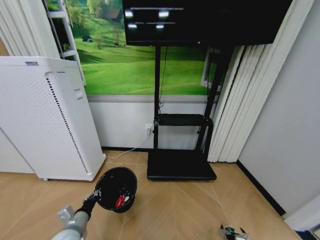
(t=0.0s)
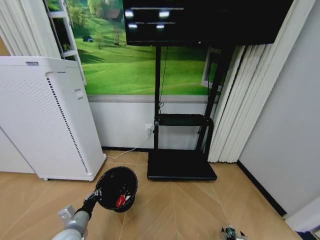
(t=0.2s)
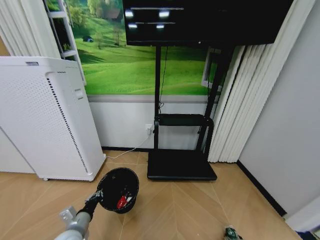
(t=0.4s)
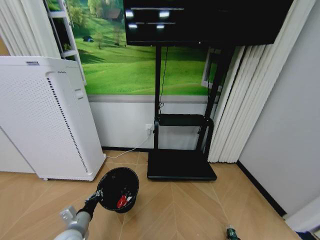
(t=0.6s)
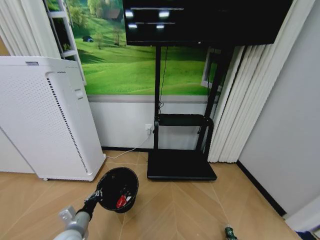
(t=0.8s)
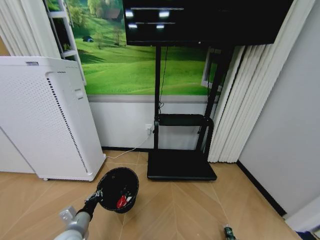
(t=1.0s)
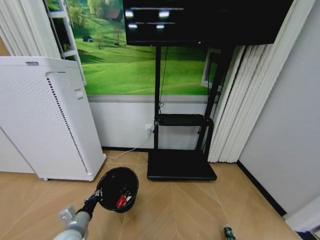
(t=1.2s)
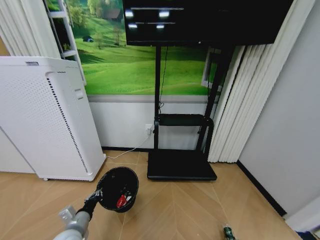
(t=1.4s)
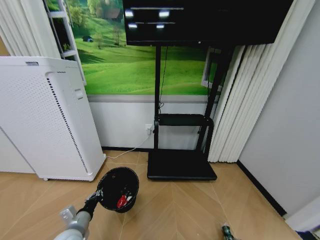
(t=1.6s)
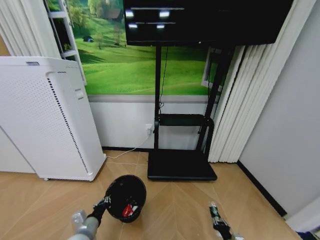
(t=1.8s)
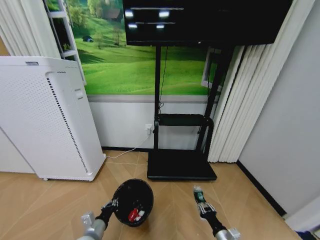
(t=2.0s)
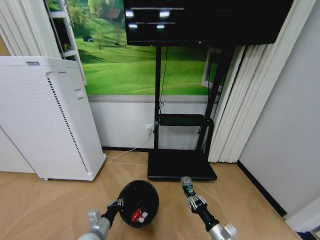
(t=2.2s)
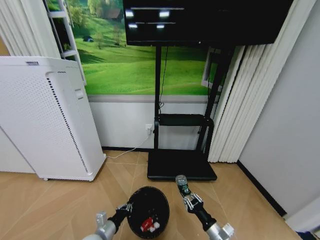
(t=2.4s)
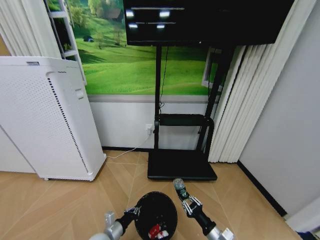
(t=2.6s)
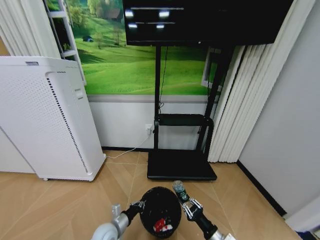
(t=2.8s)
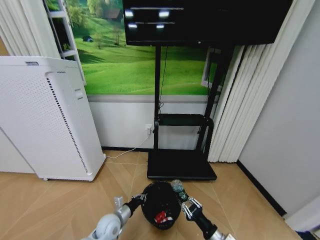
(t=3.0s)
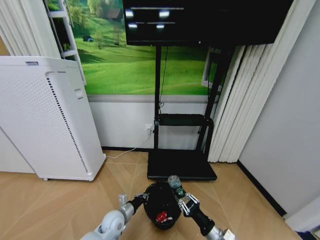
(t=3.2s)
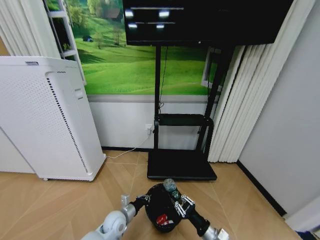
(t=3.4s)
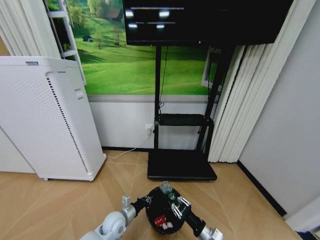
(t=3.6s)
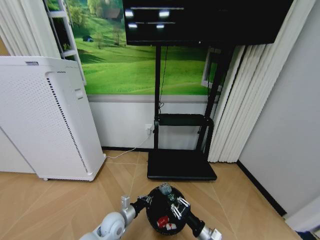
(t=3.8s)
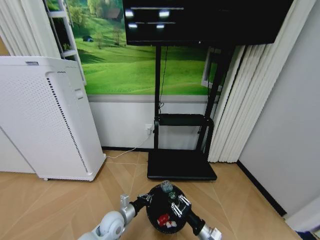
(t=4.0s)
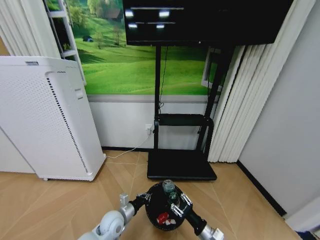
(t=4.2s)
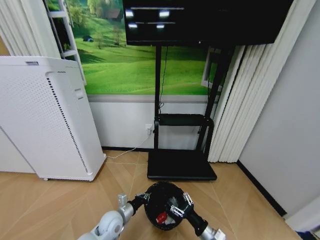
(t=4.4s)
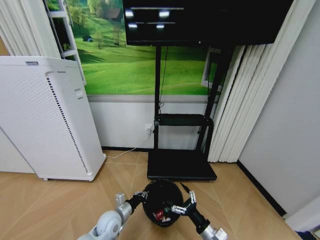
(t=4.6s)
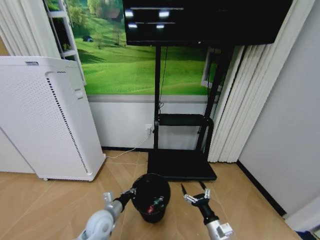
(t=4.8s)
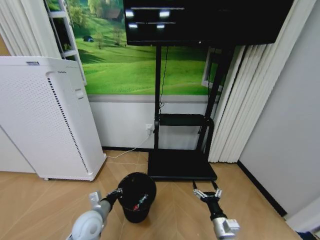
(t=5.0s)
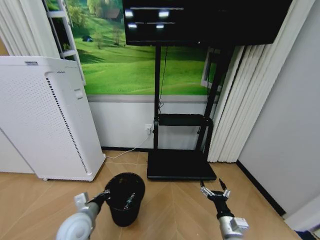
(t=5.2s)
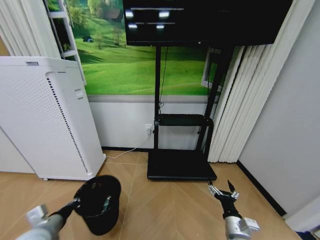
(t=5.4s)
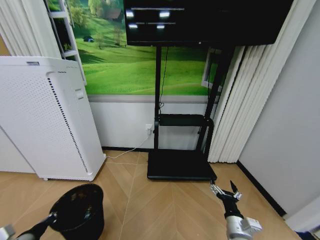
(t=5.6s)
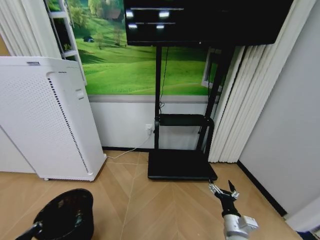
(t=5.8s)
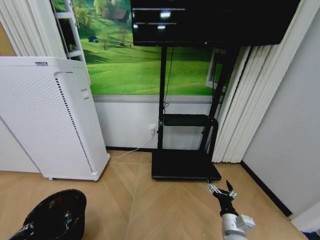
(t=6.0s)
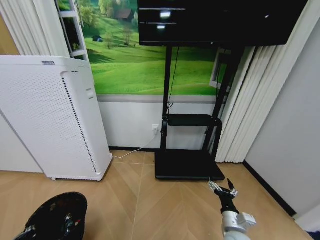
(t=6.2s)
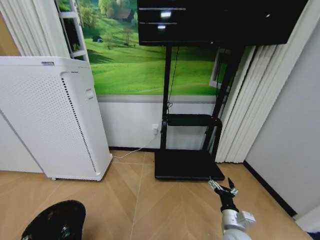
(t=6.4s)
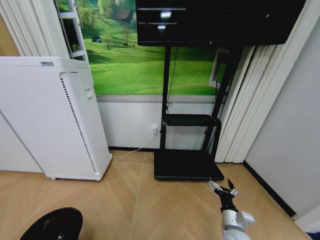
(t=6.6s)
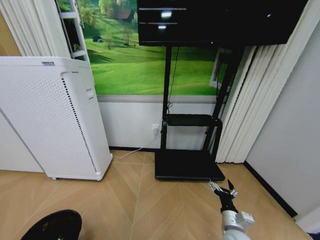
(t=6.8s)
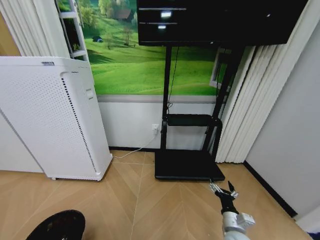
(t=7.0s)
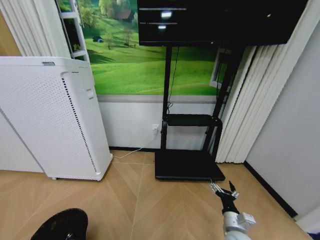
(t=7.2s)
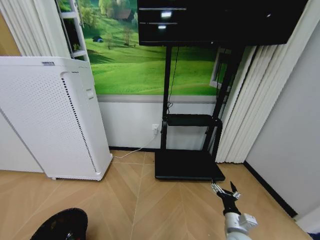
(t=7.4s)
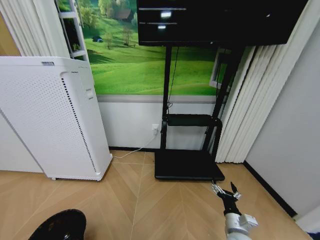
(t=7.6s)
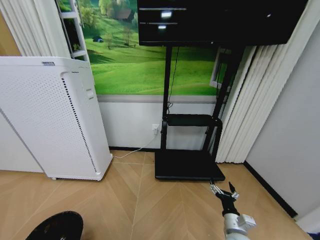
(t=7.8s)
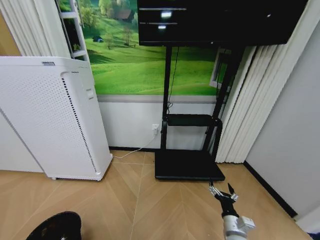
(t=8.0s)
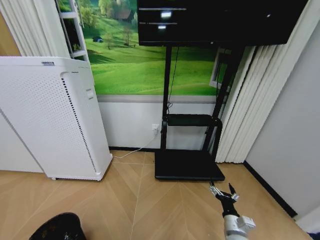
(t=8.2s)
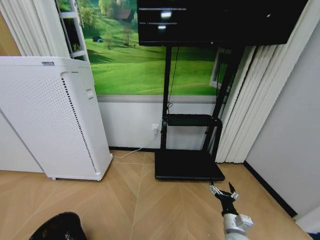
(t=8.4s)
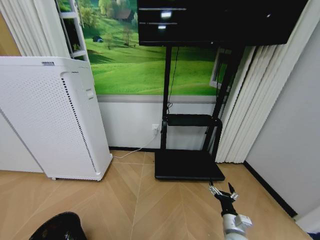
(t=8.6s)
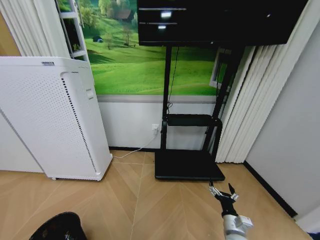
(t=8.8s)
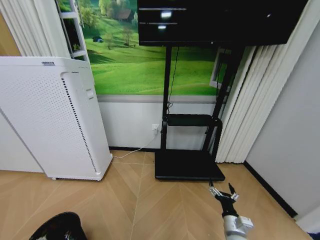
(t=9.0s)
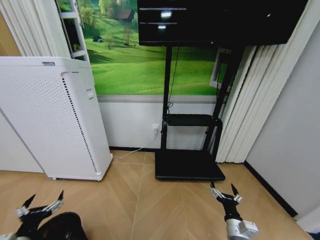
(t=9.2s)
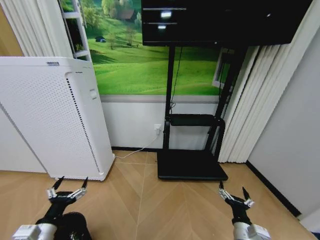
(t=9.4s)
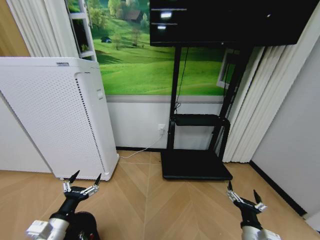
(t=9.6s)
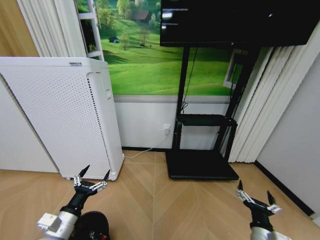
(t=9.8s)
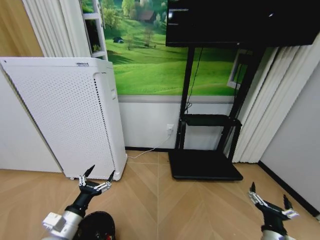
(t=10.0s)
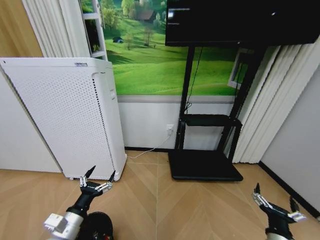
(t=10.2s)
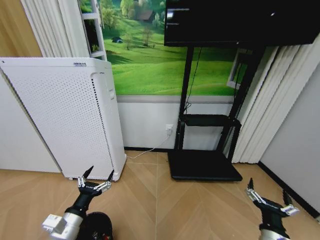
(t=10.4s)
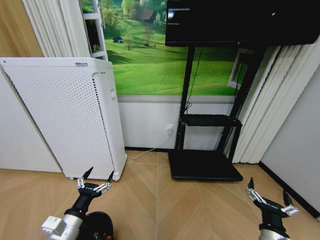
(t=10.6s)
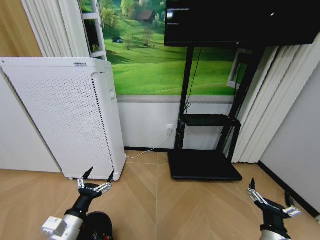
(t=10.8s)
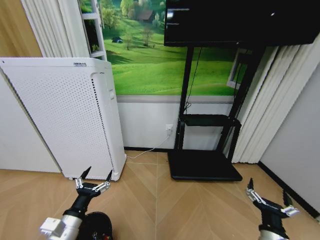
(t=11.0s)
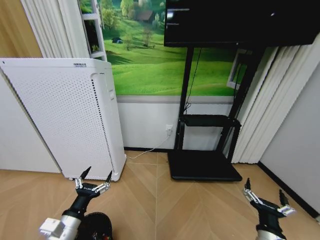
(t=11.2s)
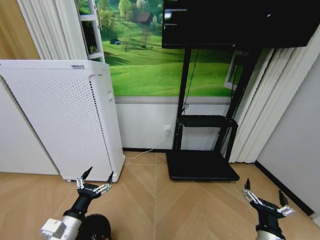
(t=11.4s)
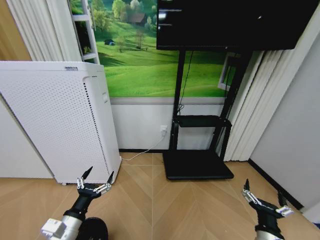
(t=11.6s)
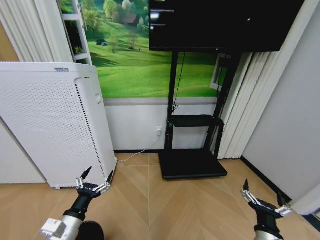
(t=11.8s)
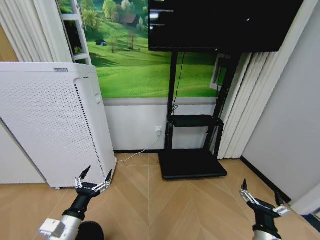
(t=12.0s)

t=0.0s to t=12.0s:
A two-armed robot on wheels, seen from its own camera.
Task of the whole recording: Pick up the trash bin and place the garbage on the floor into it.
t=0.0s to t=1.6s: The right gripper closes up.
t=1.6s to t=3.0s: The right gripper moves upward and to the left, approximately 20 cm. The left gripper goes some 15 cm to the right, forward and downward.
t=3.0s to t=4.4s: The right gripper opens.
t=4.4s to t=6.0s: The right gripper changes place by roughly 5 cm, and opens its fingers, while the left gripper moves to the left, backward and upward, approximately 35 cm.
t=6.0s to t=7.6s: The left gripper is displaced downward by approximately 5 cm.
t=7.6s to t=9.0s: The left gripper ends up approximately 5 cm from where it was, and opens.
t=9.0s to t=10.4s: The right gripper heads upward and backward, covering some 10 cm. The left gripper goes roughly 15 cm to the right and forward.

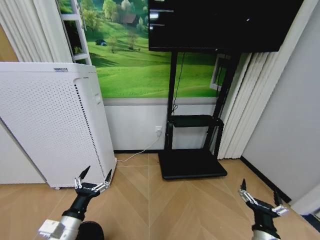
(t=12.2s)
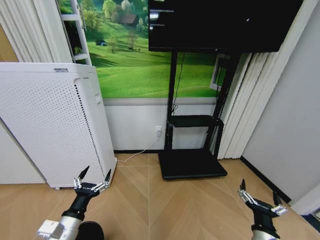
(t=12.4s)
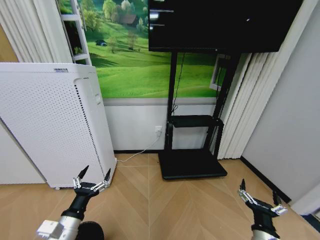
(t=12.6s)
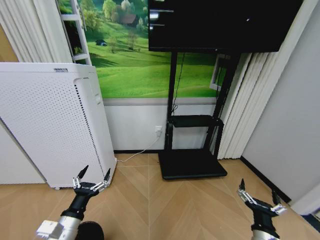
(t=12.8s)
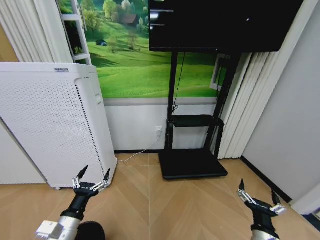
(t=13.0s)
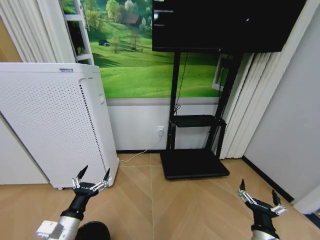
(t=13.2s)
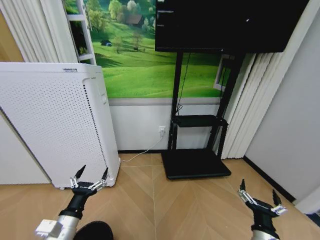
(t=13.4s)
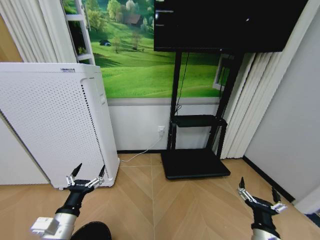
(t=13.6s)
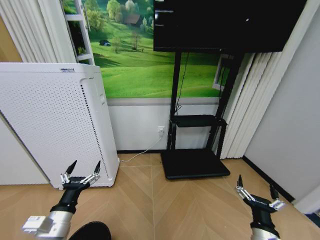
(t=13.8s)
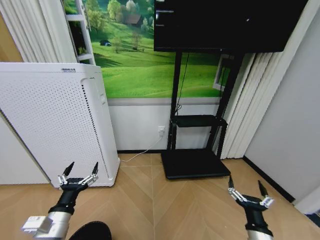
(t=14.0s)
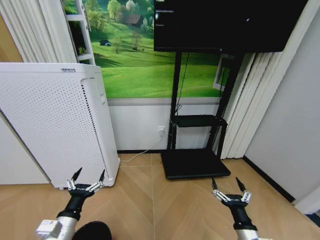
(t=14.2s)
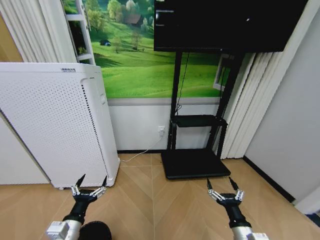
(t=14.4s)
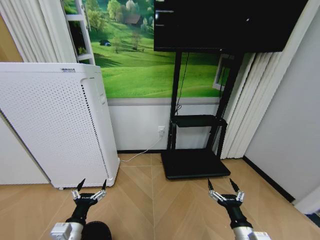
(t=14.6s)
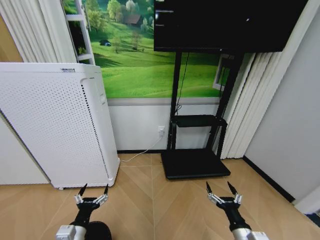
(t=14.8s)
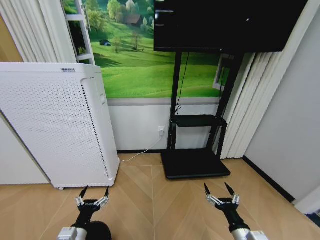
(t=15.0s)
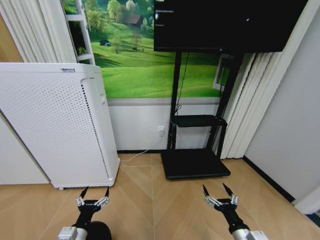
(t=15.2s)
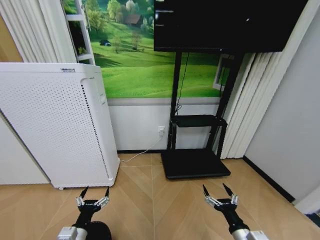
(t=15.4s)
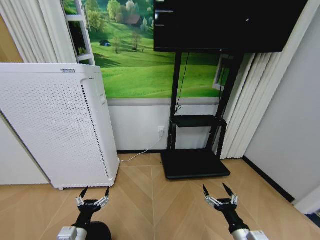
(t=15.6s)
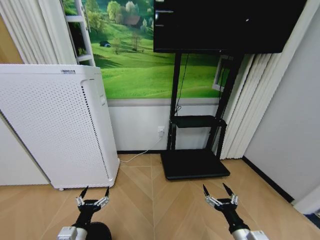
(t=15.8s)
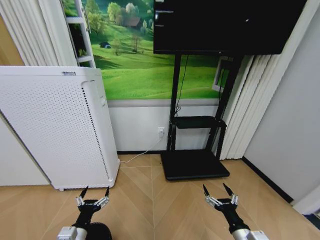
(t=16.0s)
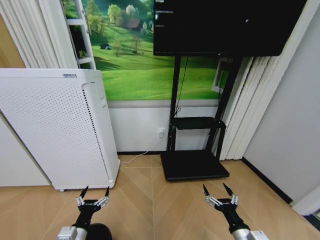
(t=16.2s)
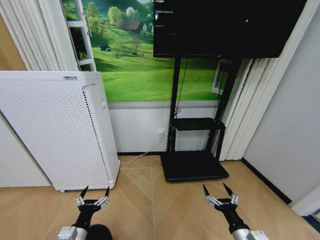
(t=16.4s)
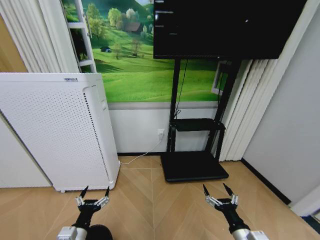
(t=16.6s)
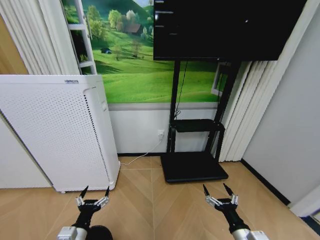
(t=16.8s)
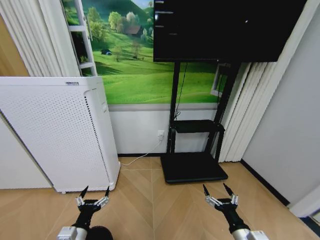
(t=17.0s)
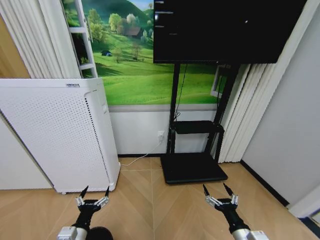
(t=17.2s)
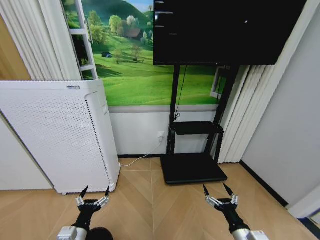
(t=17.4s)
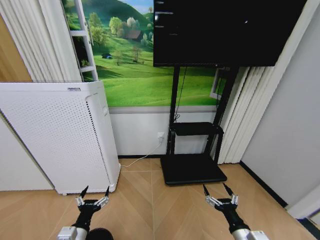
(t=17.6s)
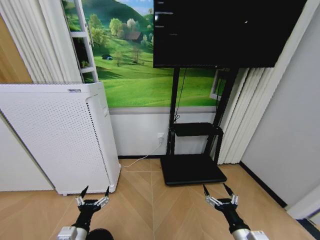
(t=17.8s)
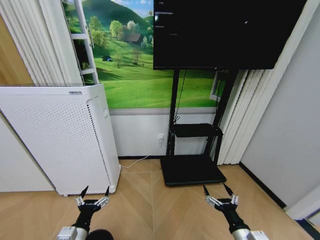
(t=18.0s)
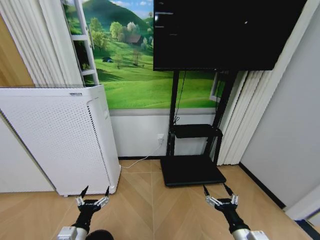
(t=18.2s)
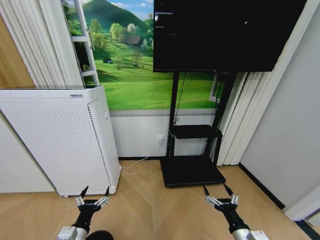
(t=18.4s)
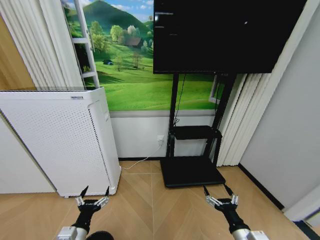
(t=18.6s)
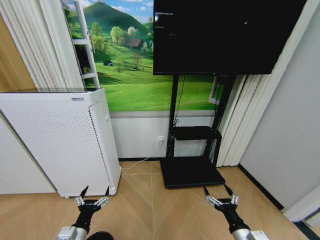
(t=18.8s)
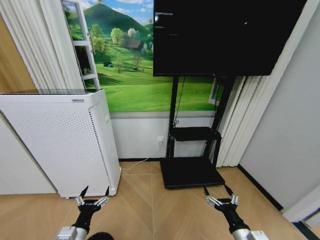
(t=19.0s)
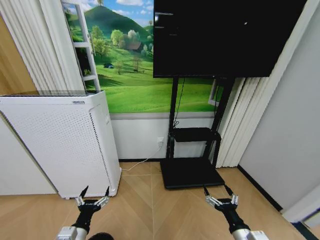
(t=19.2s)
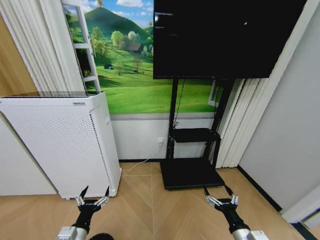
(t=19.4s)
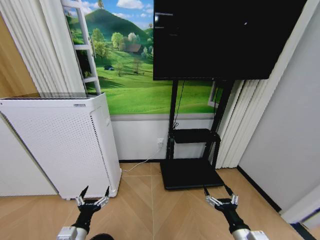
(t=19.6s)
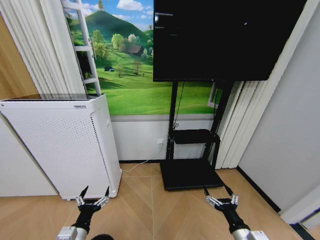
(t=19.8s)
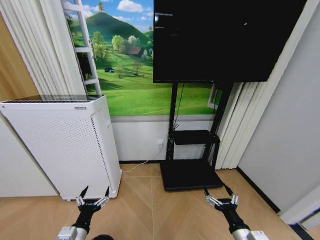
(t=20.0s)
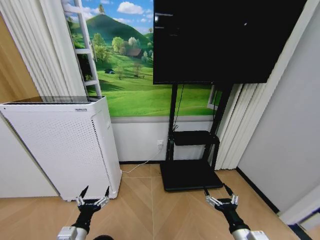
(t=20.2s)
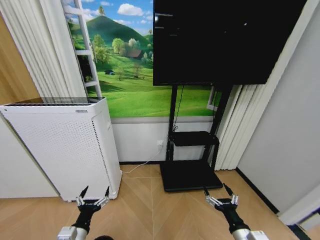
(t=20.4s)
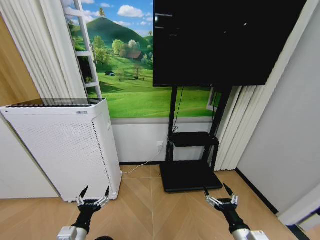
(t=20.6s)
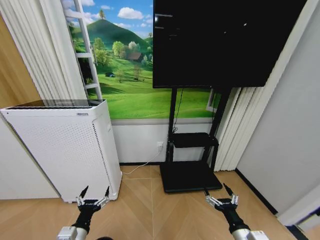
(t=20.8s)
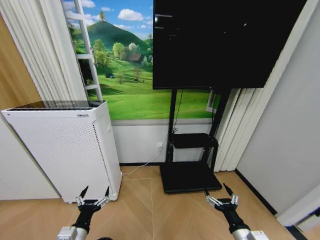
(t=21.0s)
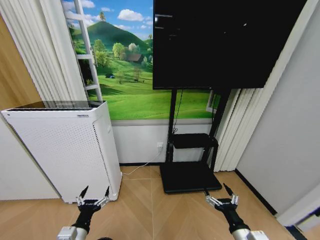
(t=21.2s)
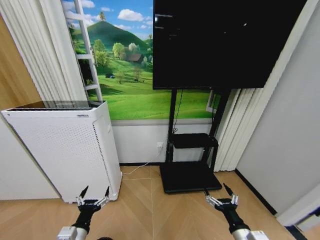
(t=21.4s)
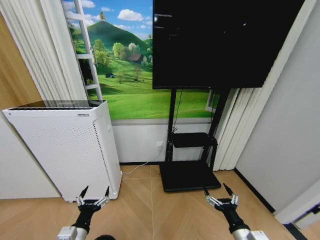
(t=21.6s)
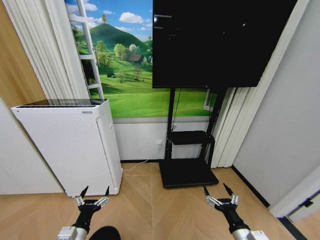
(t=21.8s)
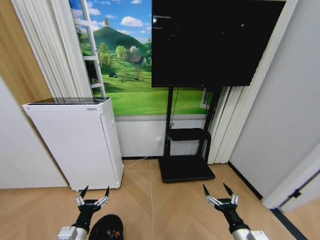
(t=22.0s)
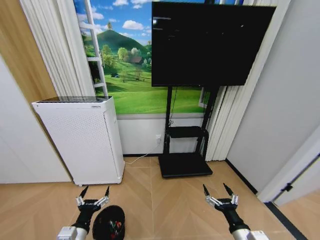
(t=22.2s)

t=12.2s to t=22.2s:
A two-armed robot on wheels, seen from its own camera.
Task of the whole recording: Pick up the trash bin and place the garbage on the floor into it.
t=12.2s to t=13.6s: The grippers move only a little.
t=13.6s to t=15.0s: The left gripper moves downward, about 10 cm.
t=15.0s to t=20.8s: Neither gripper changes place.
